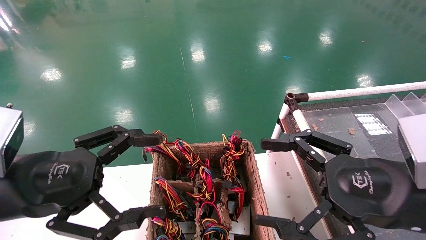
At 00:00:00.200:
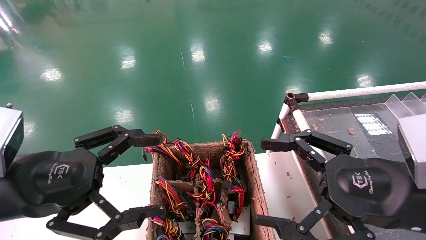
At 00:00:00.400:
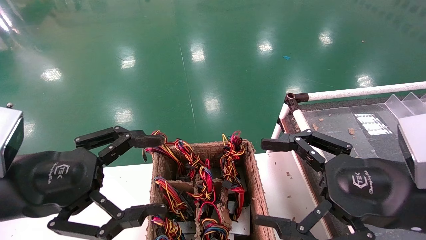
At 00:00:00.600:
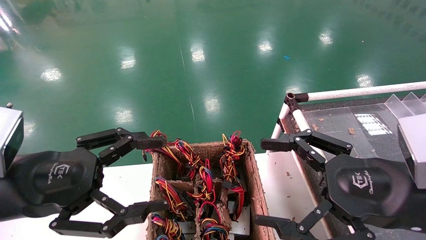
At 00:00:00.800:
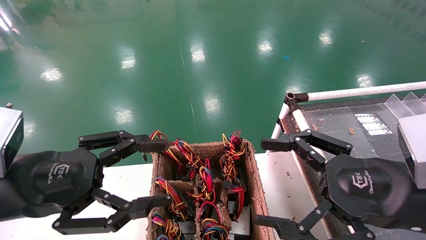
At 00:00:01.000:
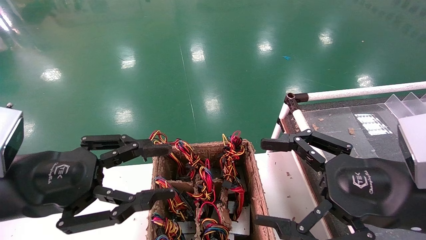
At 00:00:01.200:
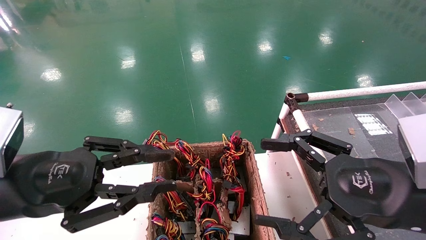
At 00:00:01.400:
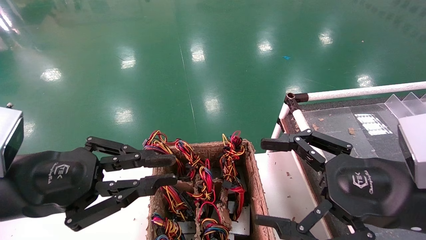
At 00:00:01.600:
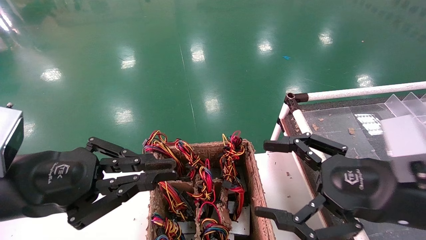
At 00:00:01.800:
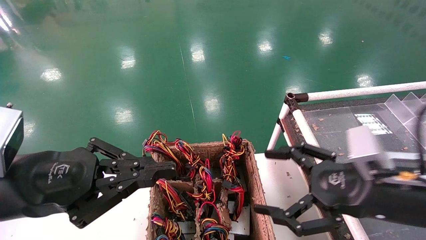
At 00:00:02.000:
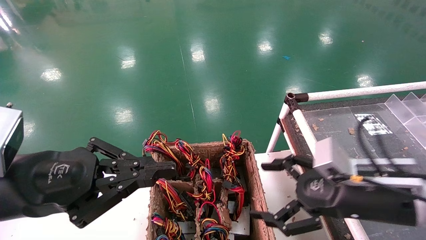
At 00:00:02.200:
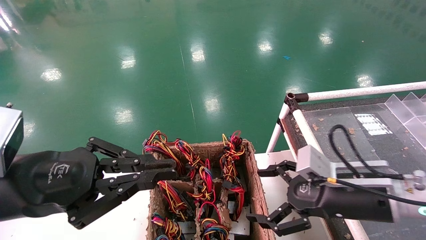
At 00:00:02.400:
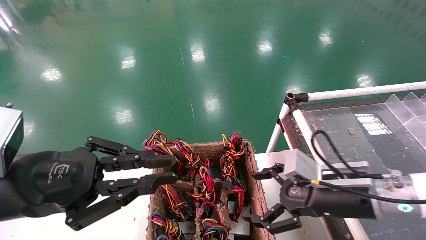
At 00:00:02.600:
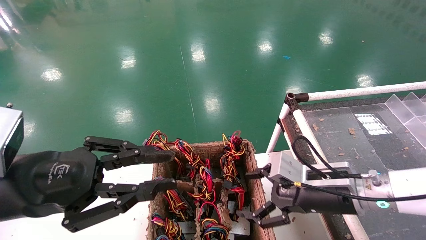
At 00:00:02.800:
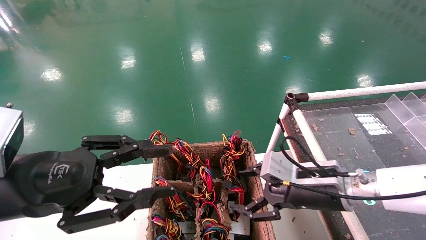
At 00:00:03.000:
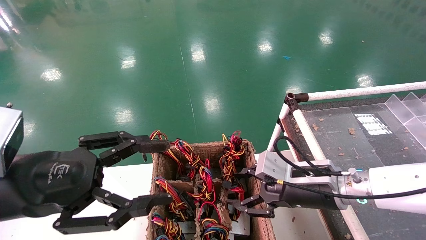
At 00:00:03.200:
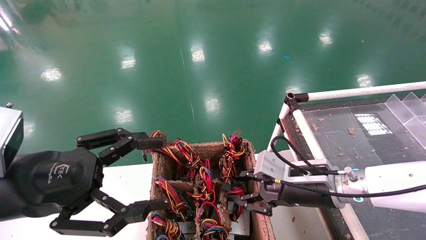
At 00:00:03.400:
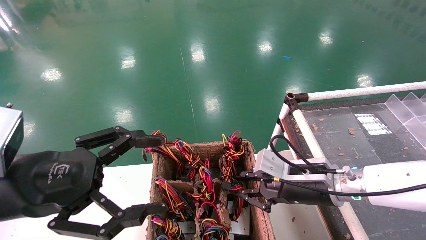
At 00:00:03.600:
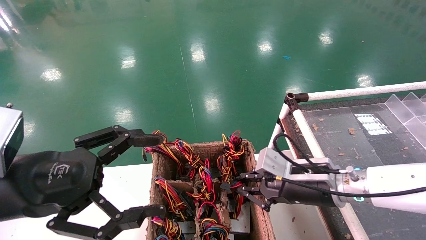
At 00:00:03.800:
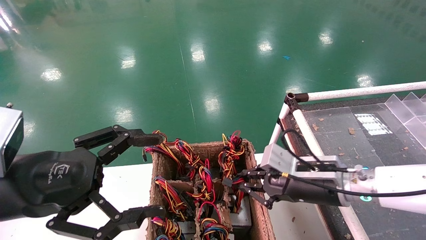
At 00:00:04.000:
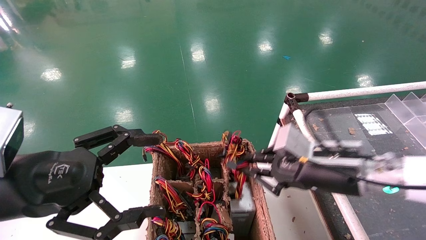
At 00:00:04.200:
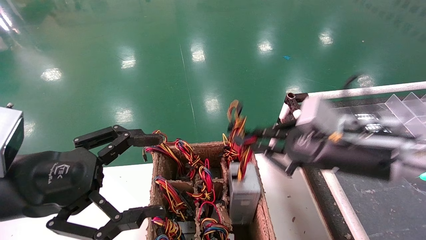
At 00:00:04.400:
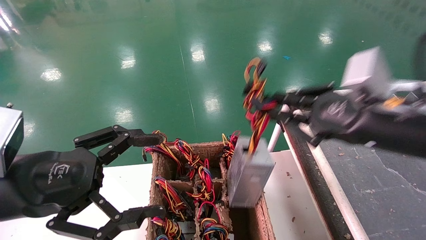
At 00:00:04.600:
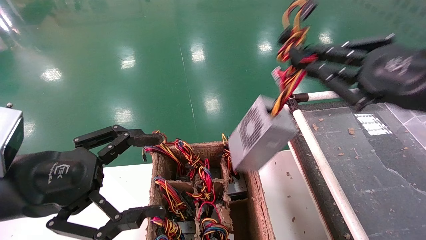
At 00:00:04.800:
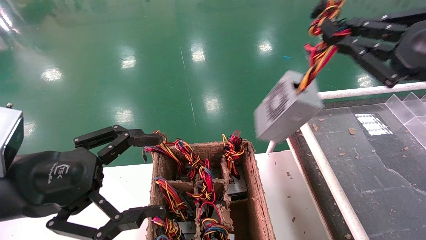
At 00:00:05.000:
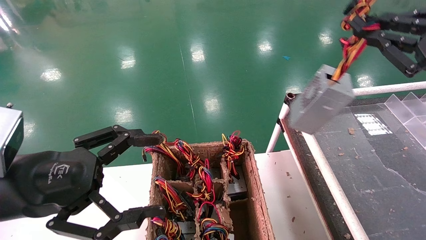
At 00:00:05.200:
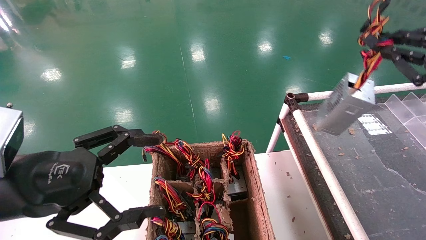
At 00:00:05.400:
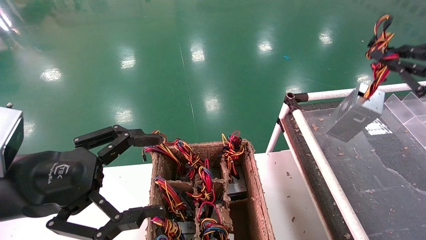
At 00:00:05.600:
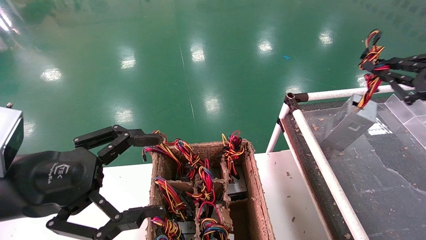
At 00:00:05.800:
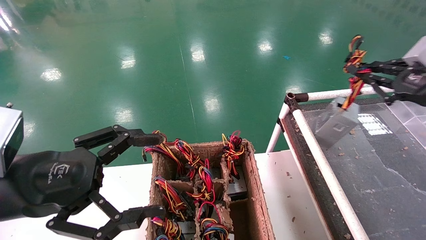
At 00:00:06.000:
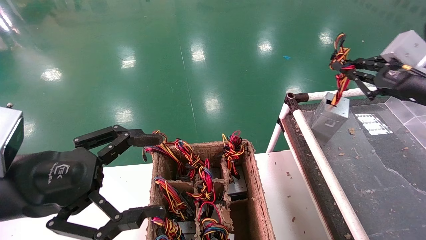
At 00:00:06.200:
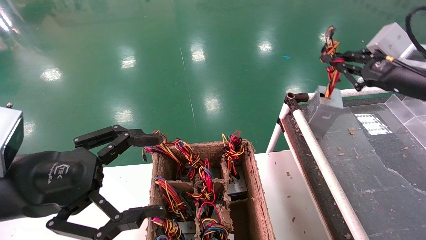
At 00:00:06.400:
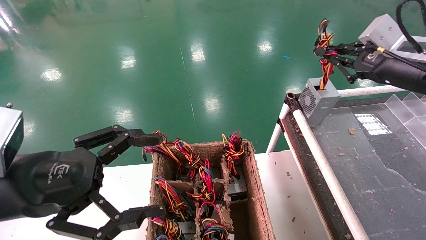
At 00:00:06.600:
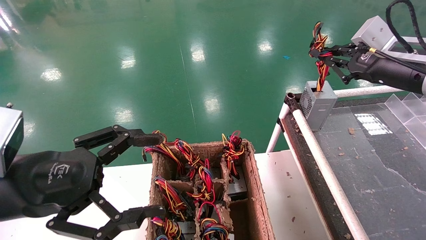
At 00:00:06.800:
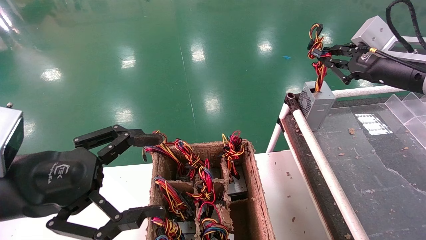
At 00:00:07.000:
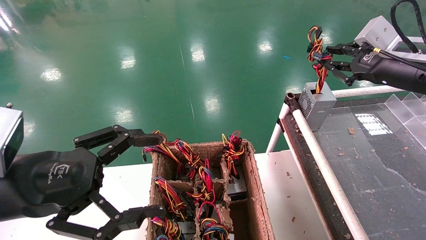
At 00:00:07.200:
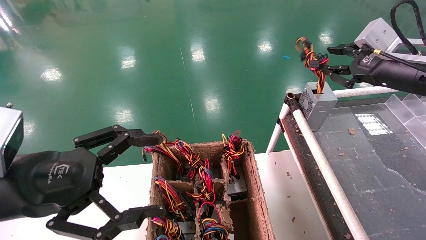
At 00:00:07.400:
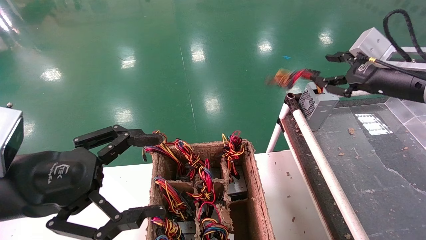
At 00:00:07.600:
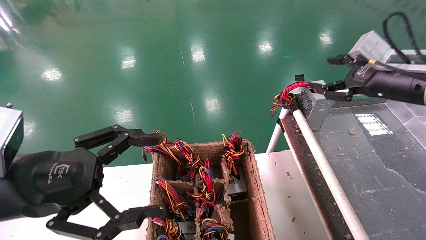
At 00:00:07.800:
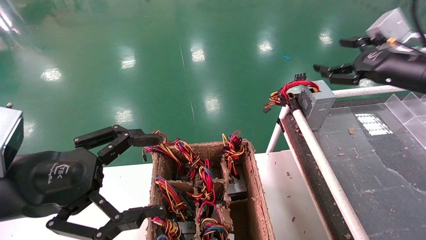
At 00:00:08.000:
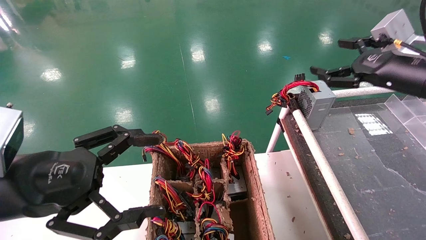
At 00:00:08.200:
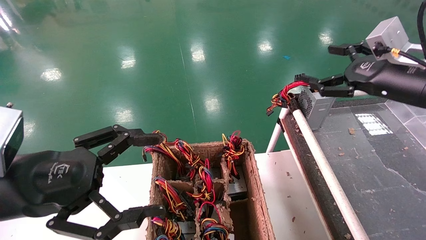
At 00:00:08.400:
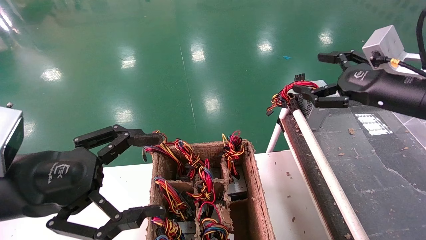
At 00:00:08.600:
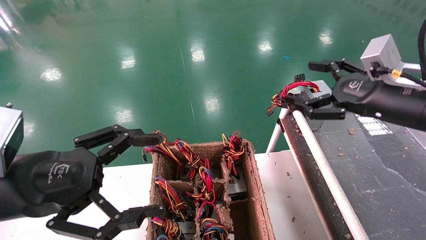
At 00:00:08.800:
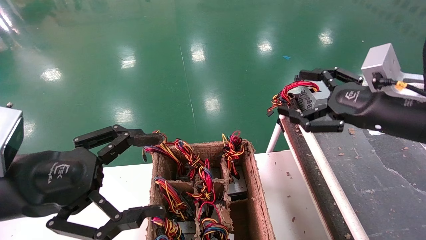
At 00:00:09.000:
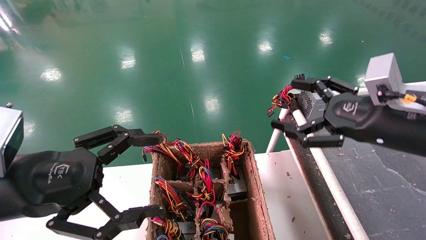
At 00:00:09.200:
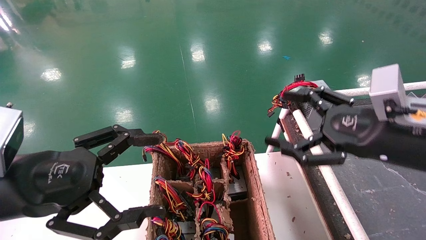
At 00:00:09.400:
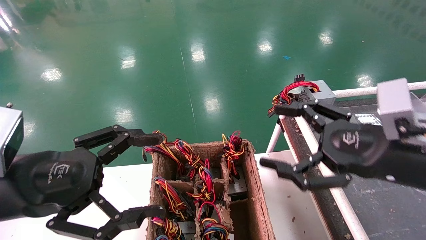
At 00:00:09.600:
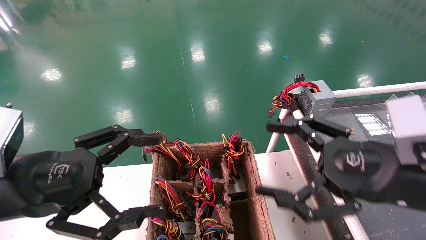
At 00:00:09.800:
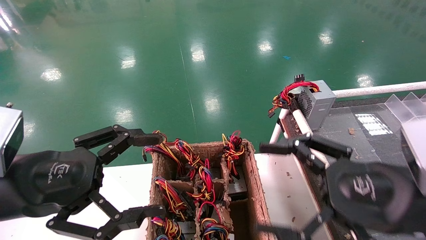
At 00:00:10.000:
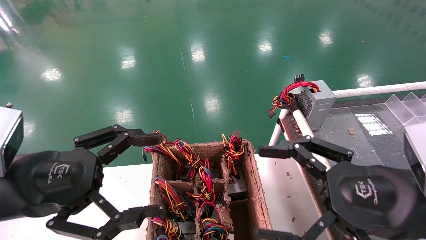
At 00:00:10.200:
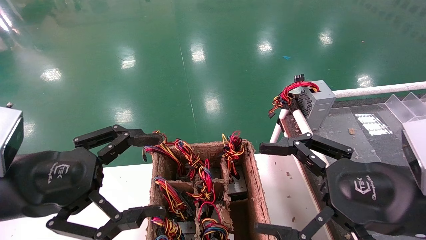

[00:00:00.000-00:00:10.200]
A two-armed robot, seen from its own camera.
Step, 00:00:01.800 to 00:00:03.600: Grab and lift the power supply from the large box.
Step, 00:00:03.800 to 00:00:07.000: Place the power supply on the operating table.
00:00:00.000 to 00:00:01.400: The left gripper closes.
00:00:01.400 to 00:00:03.000: The right gripper shifts approximately 15 cm forward, downward and to the left, and closes.
00:00:03.000 to 00:00:04.400: The right gripper goes approximately 20 cm upward, backward and to the right, and closes up. The left gripper opens up.
00:00:04.400 to 00:00:05.800: The right gripper goes about 15 cm to the right and forward.
00:00:05.800 to 00:00:07.200: The right gripper shifts some 5 cm forward.
00:00:07.200 to 00:00:08.800: The right gripper goes about 10 cm backward, downward and to the left, and opens up.
00:00:08.800 to 00:00:10.200: The right gripper shifts about 10 cm backward and downward.

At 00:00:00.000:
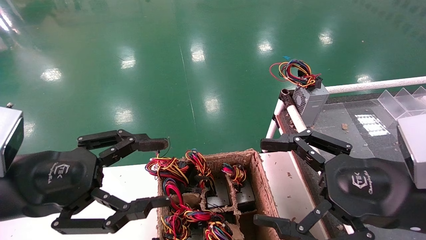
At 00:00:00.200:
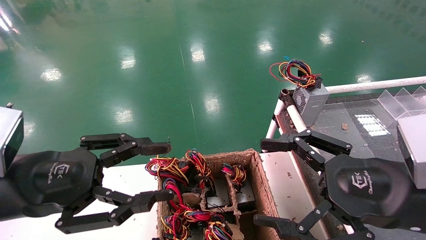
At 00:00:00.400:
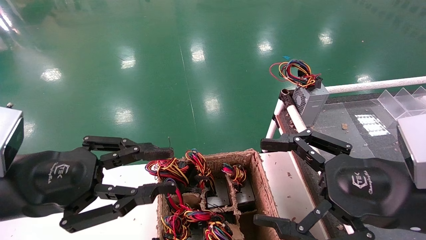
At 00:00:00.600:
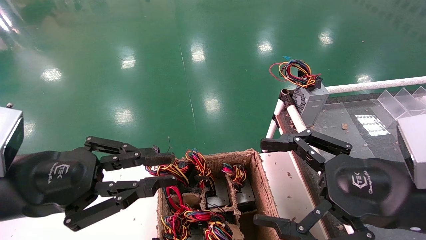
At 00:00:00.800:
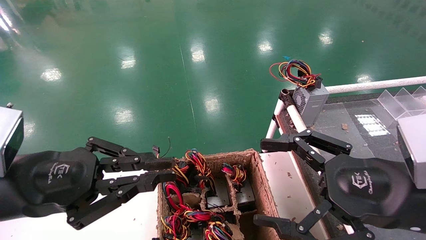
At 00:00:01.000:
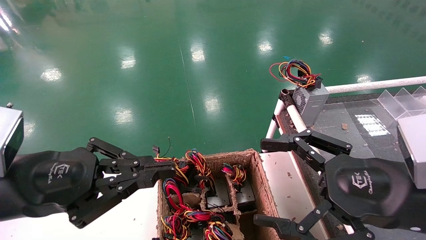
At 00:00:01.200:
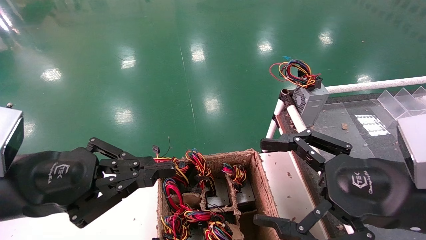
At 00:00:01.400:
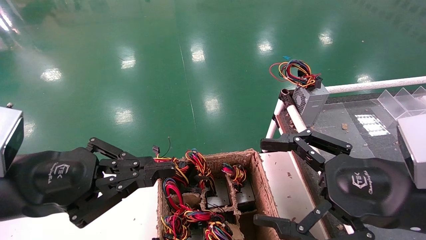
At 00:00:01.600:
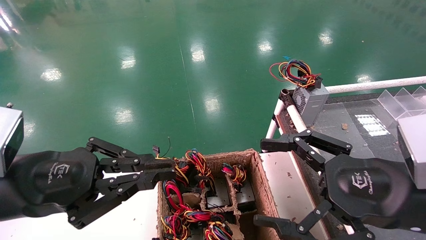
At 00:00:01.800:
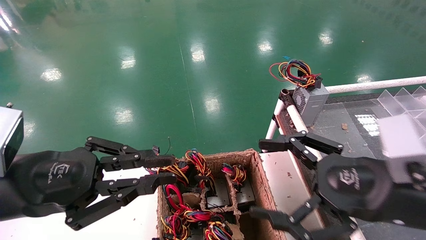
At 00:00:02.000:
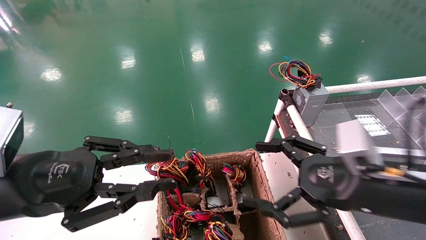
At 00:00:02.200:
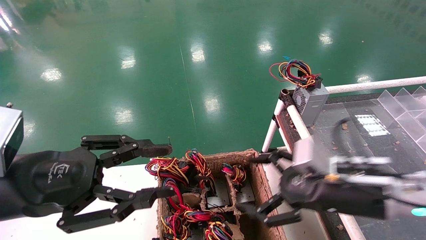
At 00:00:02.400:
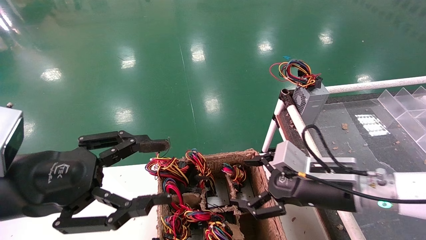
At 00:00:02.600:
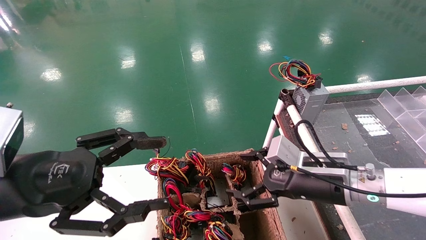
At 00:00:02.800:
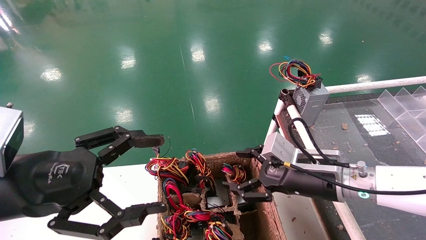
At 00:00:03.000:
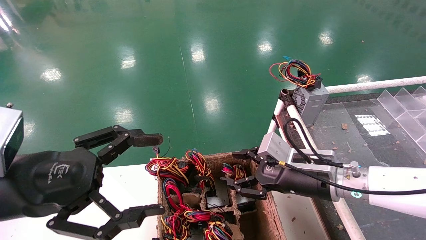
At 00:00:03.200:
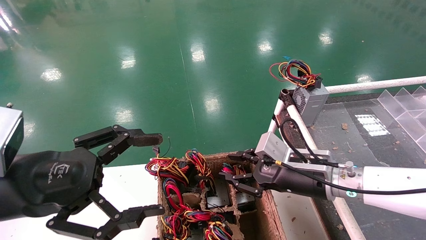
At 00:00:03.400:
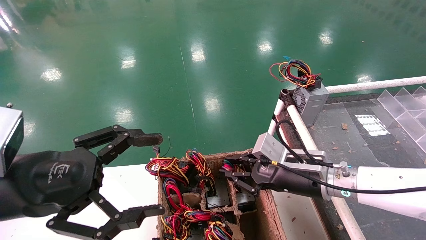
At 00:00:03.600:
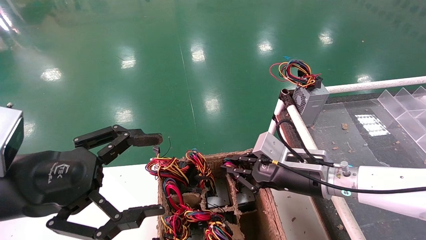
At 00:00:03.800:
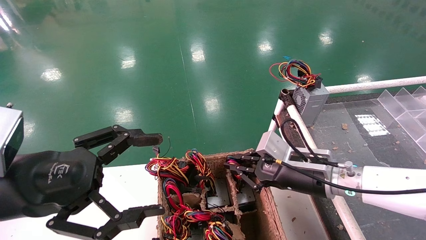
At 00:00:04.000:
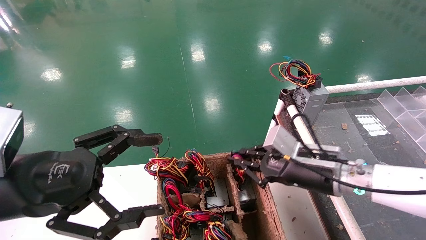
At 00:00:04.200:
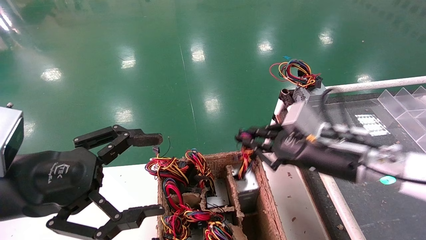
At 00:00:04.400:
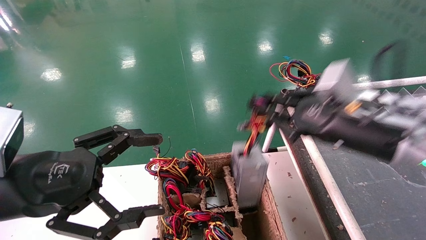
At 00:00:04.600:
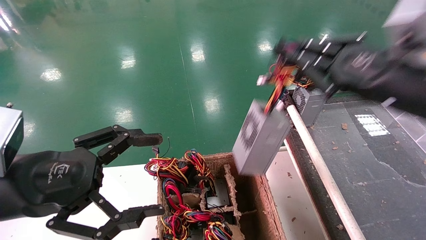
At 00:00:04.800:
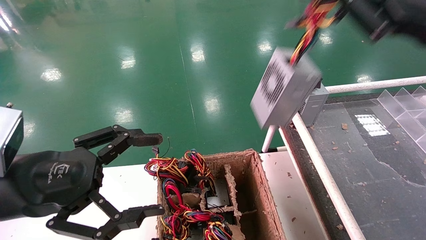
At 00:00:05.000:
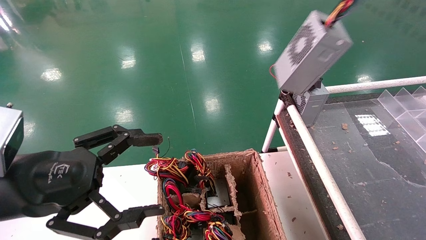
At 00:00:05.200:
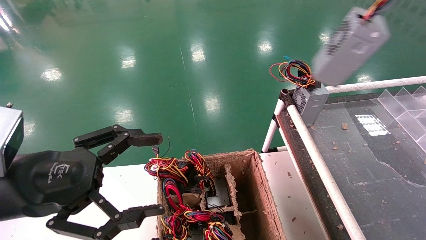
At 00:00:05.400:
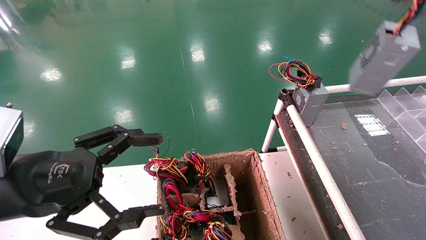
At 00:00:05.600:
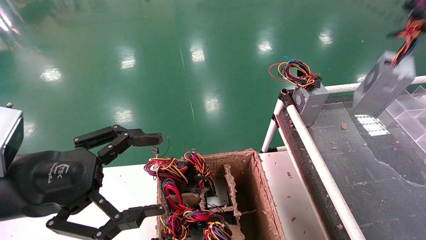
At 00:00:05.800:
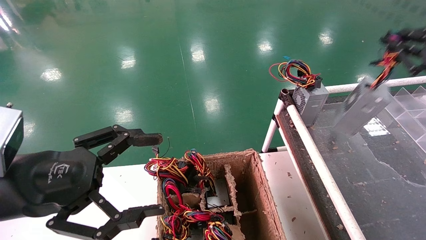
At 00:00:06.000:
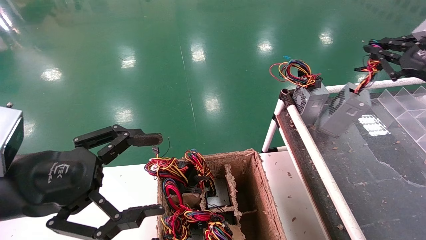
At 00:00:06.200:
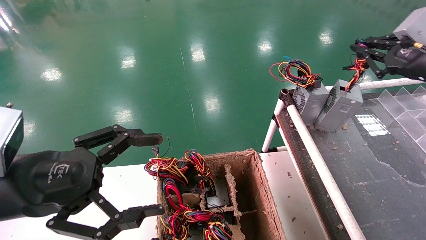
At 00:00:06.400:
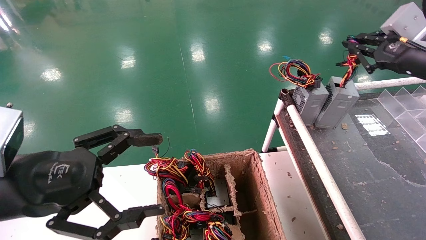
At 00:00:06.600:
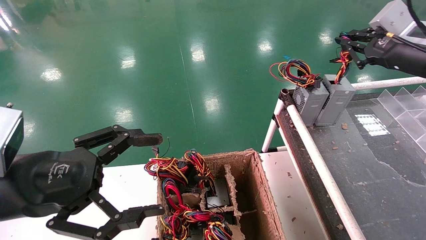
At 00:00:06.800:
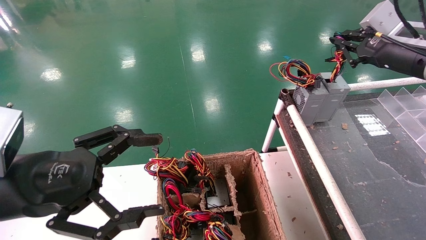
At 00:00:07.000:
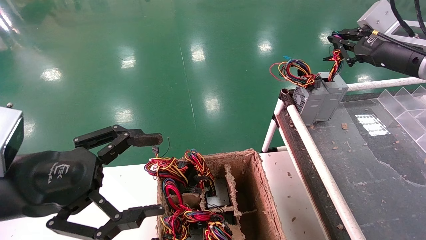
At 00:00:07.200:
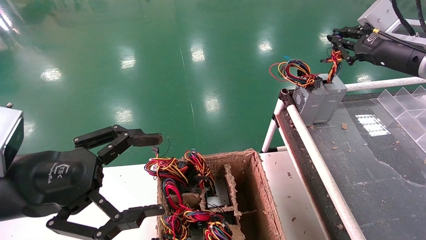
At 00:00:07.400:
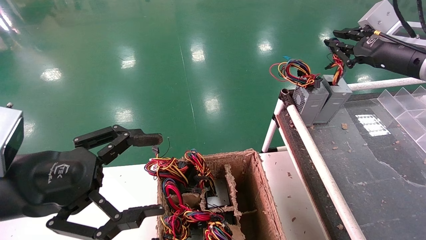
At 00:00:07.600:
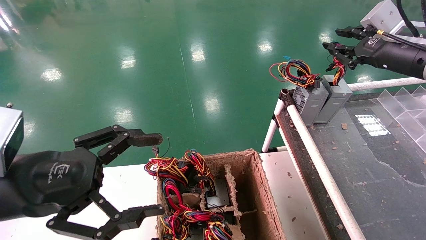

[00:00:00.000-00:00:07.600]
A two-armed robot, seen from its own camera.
Step, 00:00:02.000 to 00:00:04.000: Grab and lift the power supply from the large box.
Step, 00:00:04.200 to 00:00:07.400: Place the power supply on the operating table.
00:00:00.000 to 00:00:01.600: The left gripper closes its fingers.
00:00:01.600 to 00:00:03.000: The right gripper moves forward, downward and to the left, approximately 15 cm, while the left gripper opens up.
00:00:03.000 to 00:00:04.600: The right gripper shifts about 20 cm upward, to the right and backward, and closes.
00:00:04.600 to 00:00:06.000: The right gripper moves to the right and forward, some 15 cm.
00:00:06.000 to 00:00:07.600: The right gripper shifts roughly 5 cm forward.
